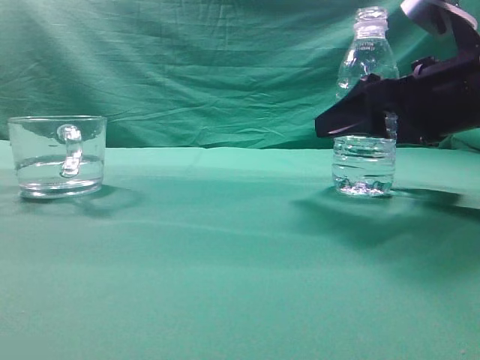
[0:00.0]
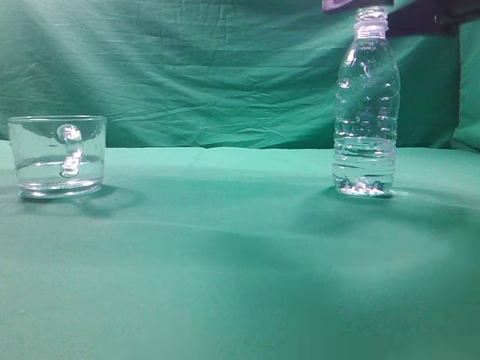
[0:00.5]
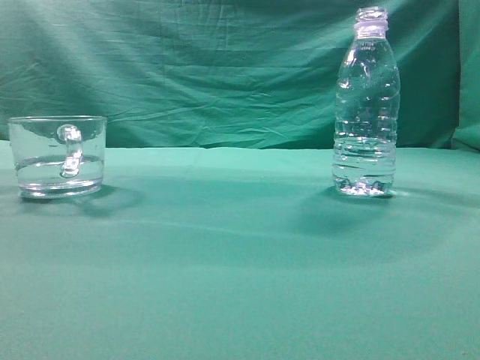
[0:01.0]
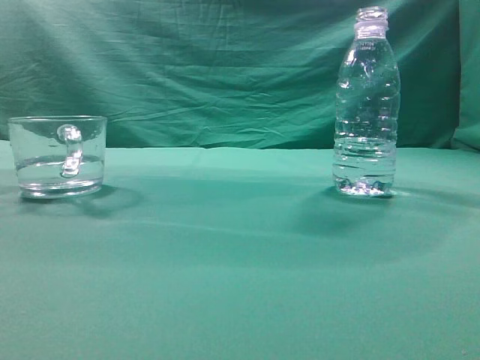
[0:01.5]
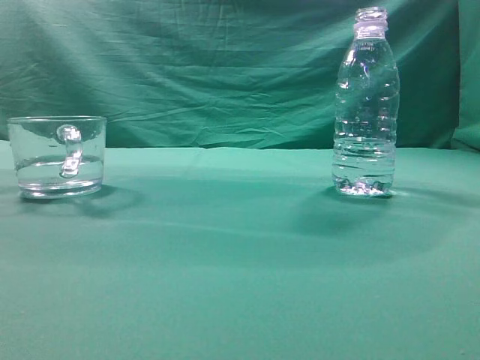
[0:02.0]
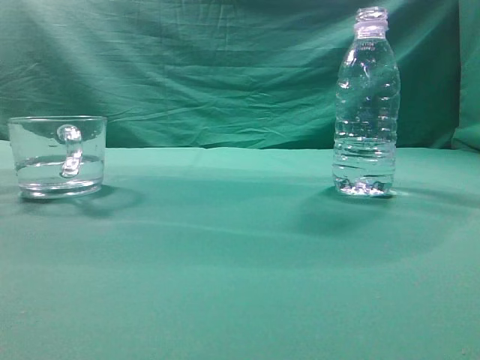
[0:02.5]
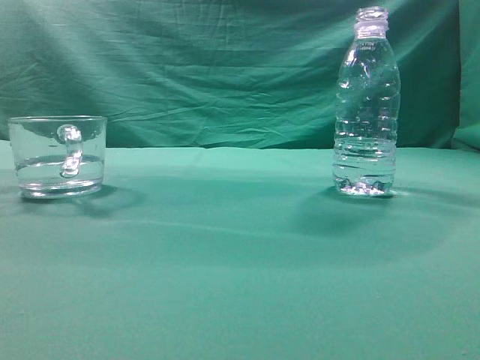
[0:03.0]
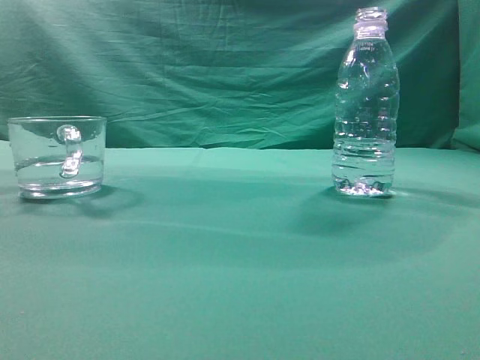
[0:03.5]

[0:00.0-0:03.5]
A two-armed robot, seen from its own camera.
Task of the whole recording: pick up the water bottle and pour the water in it into the glass.
0:00.0 to 0:02.0: The right gripper shifts roughly 35 cm upward and backward, and closes.
